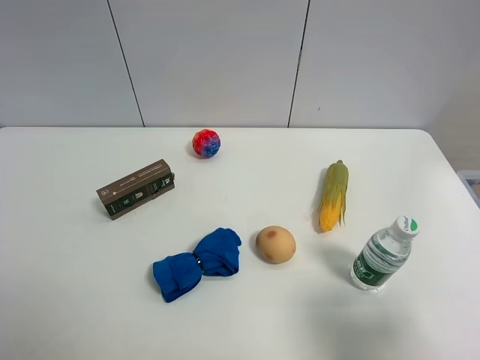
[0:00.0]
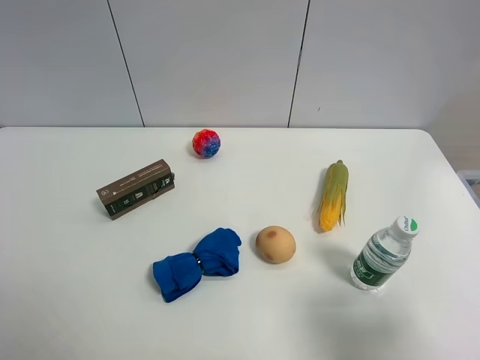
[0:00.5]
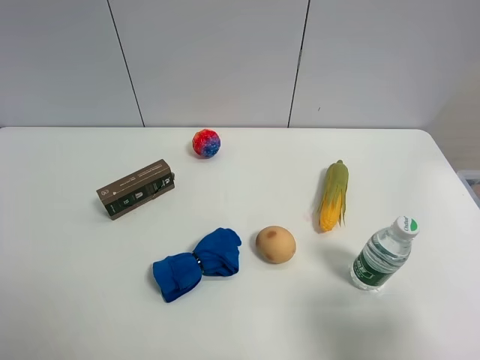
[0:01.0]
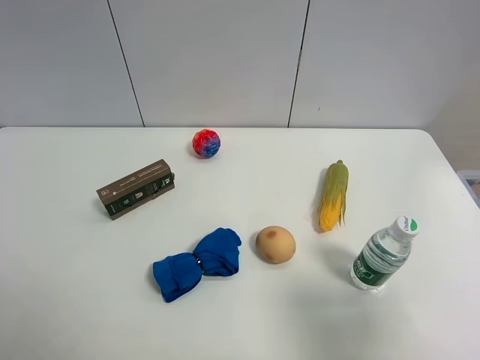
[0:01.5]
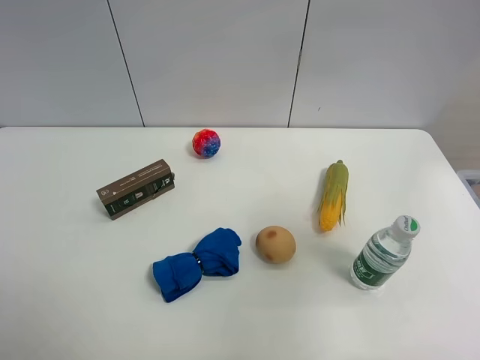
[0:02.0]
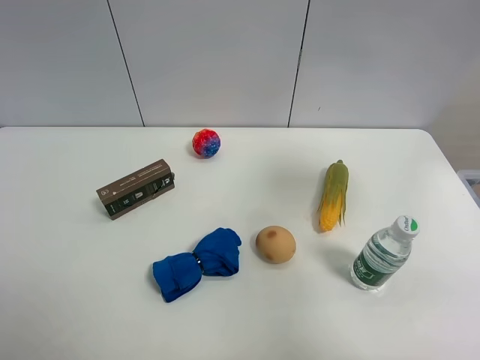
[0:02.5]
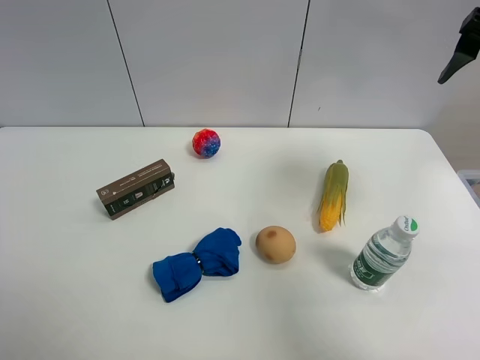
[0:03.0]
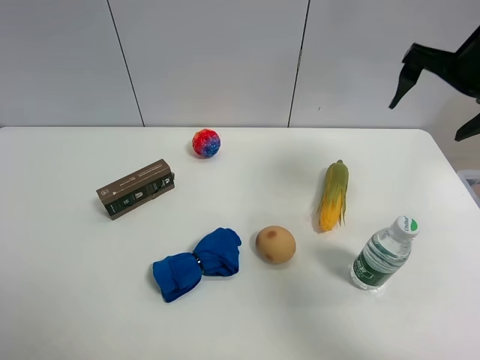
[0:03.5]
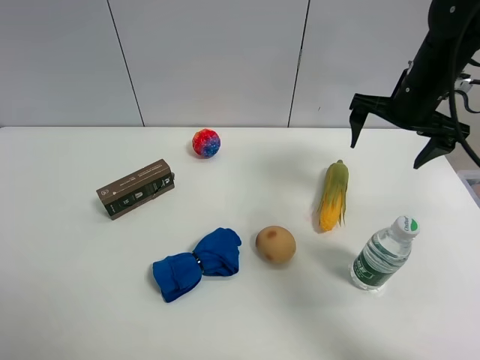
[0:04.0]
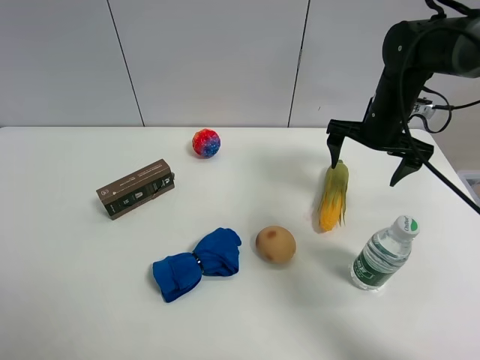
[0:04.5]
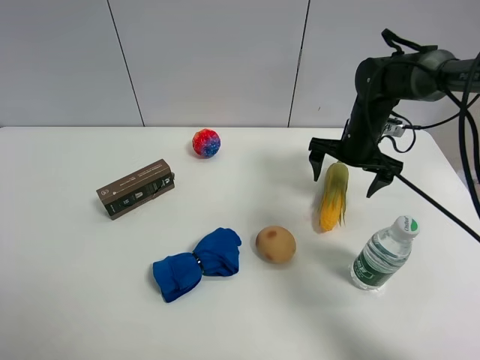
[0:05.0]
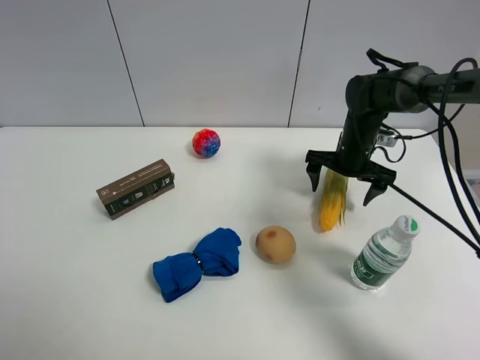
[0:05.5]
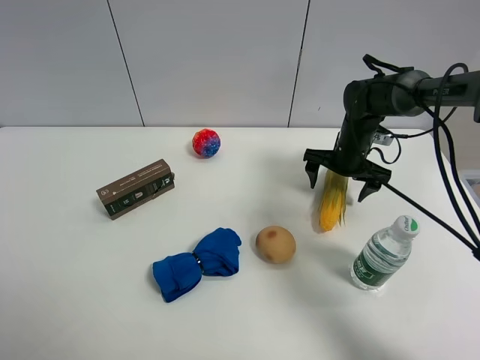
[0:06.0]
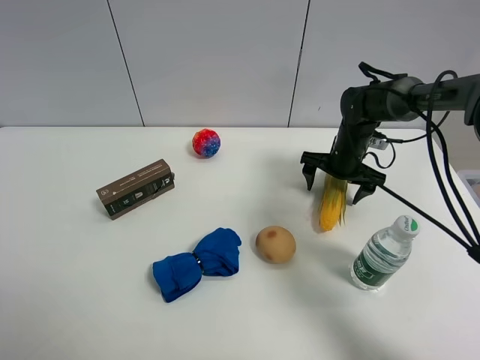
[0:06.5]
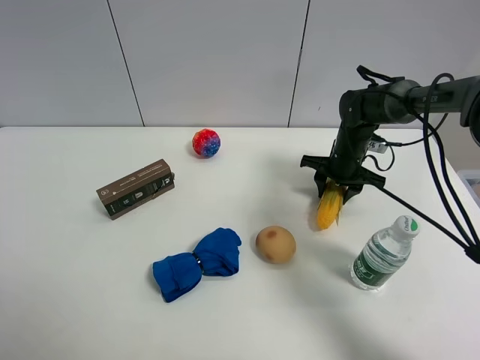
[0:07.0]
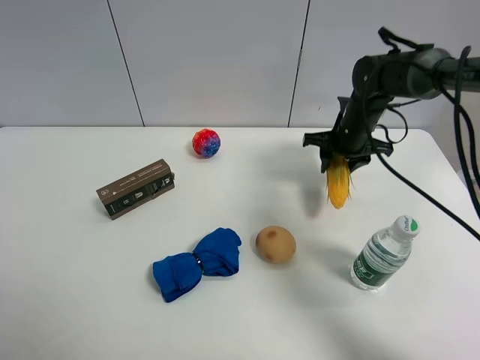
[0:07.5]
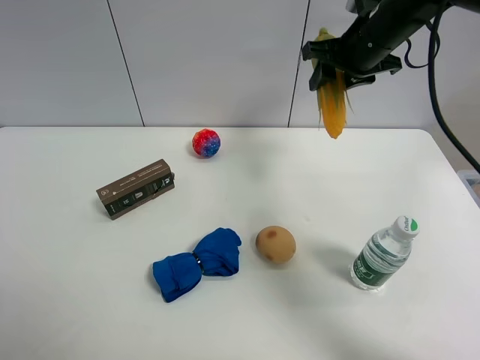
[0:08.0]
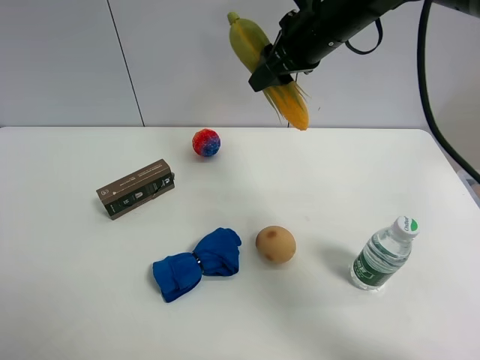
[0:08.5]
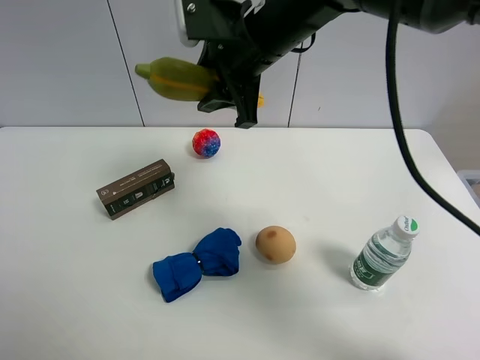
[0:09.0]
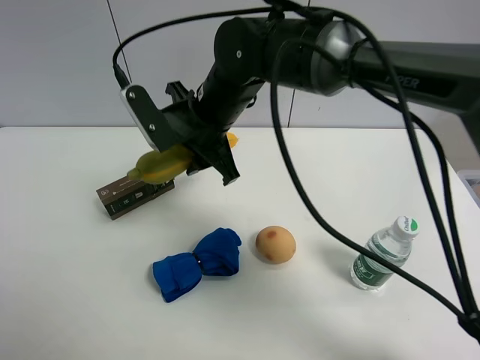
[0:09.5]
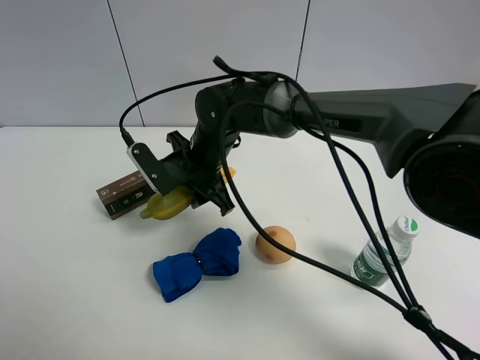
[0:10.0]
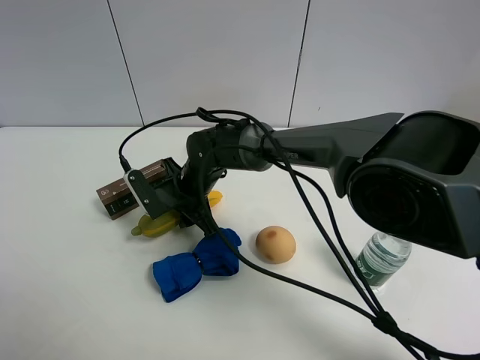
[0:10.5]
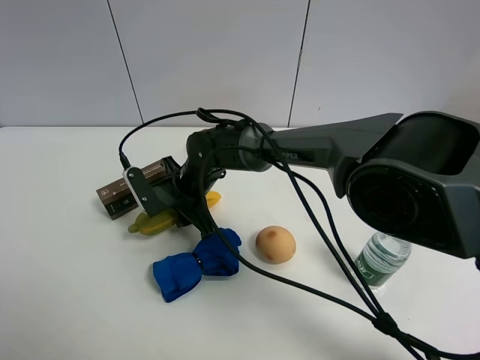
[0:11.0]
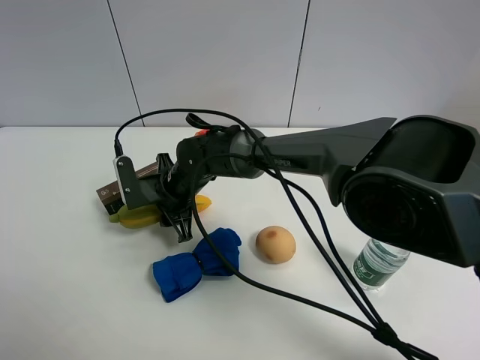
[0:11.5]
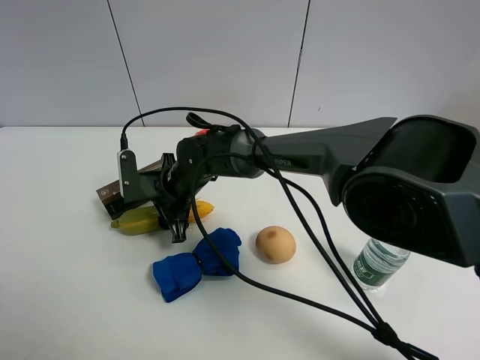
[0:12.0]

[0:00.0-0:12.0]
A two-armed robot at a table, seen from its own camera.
Task of the whole recording: the gripper move the object.
Step, 0:00.0 to 0:07.0: Grasp the corn with the right gripper.
0:00.0 to 0:02.0: The right gripper moves upward and forward, some 20 cm.
0:02.0 to 0:04.0: The right gripper moves forward and downward, roughly 35 cm.
0:04.0 to 0:06.0: The right gripper goes roughly 15 cm downward.
0:06.0 to 0:08.0: The right gripper heads upward, covering about 20 cm, and closes up.
0:08.0 to 0:10.0: The right gripper is displaced to the left and downward by about 30 cm.
0:10.0 to 0:12.0: The right gripper is displaced downward by about 5 cm.

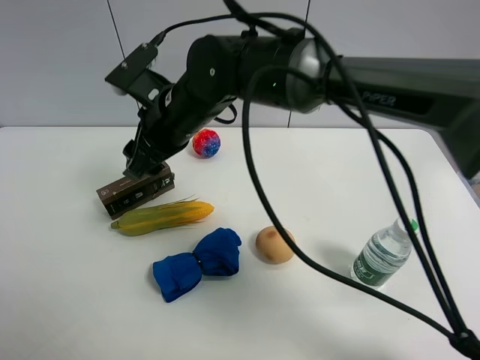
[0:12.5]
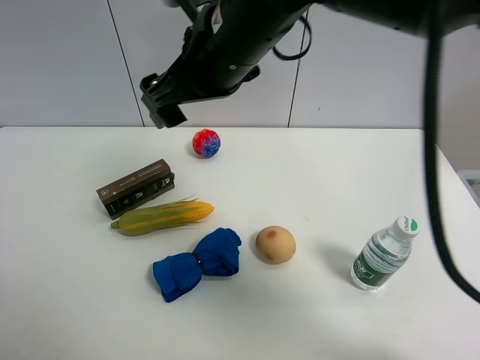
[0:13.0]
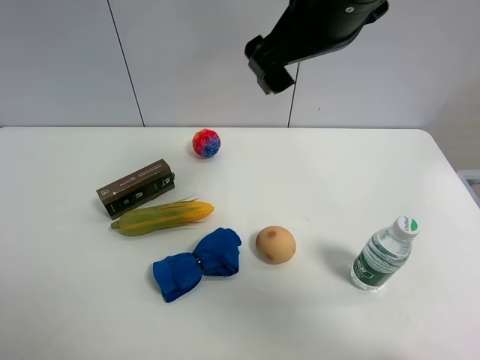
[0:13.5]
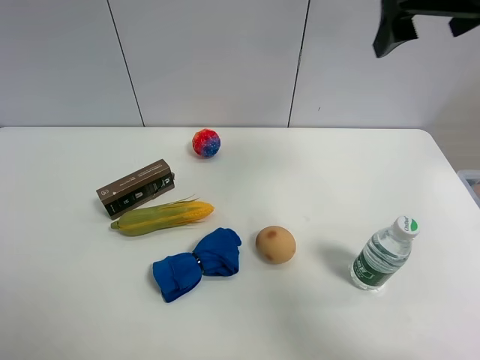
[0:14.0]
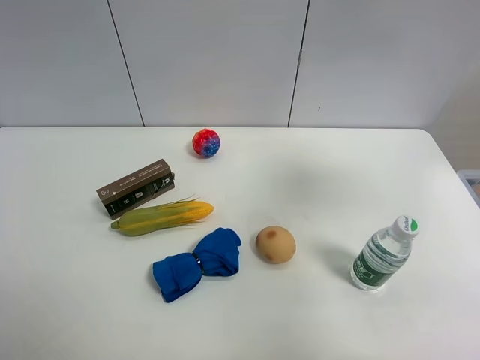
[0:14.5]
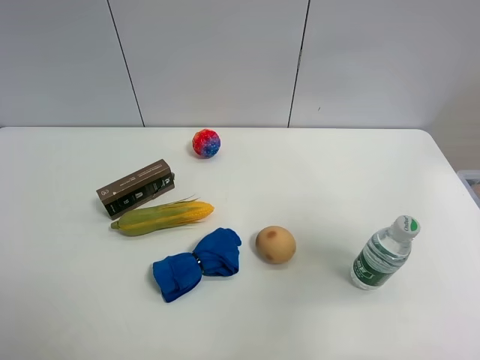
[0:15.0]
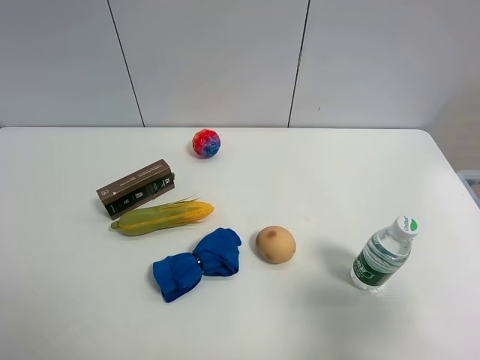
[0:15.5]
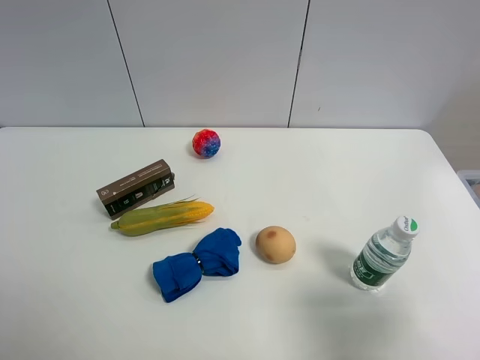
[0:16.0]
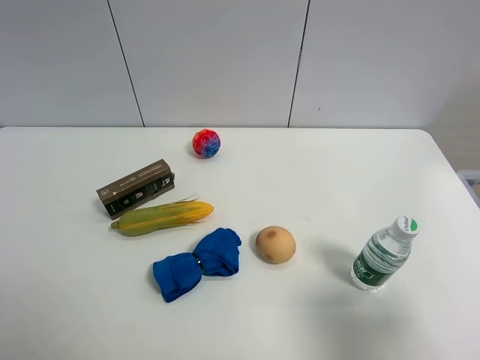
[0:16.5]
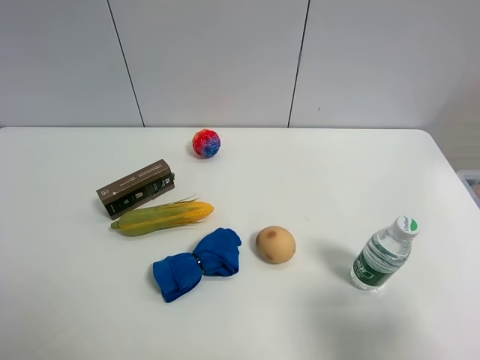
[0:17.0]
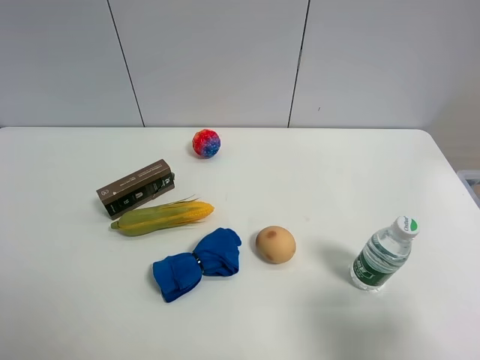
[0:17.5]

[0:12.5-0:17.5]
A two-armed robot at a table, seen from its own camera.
Task of the whole recording: the gripper move the object.
0:12.5 to 0:15.0: The right gripper travels to the right and backward by some 40 cm, and opens.
0:15.0 to 0:17.5: The right gripper heads downward and backward, covering approximately 15 cm.

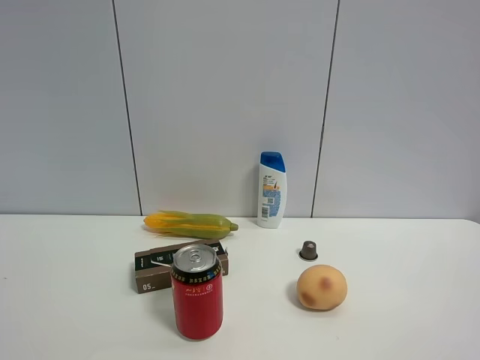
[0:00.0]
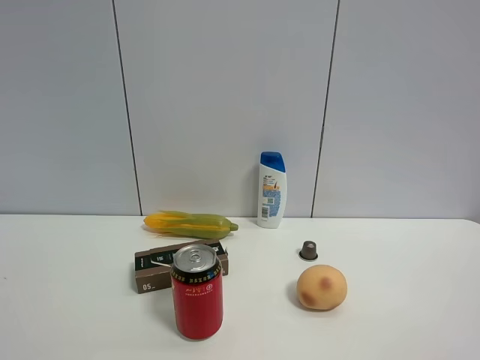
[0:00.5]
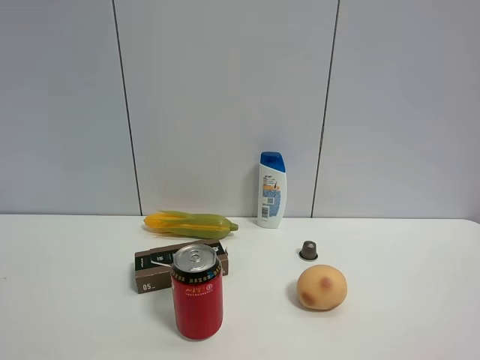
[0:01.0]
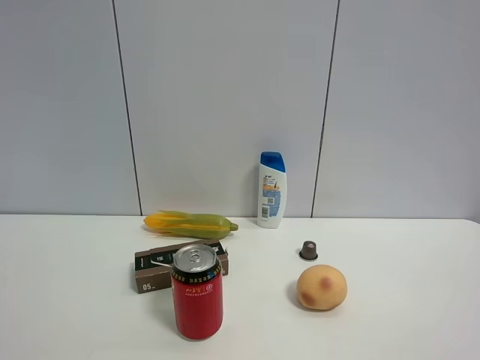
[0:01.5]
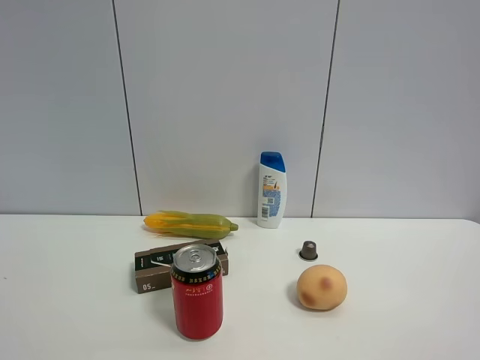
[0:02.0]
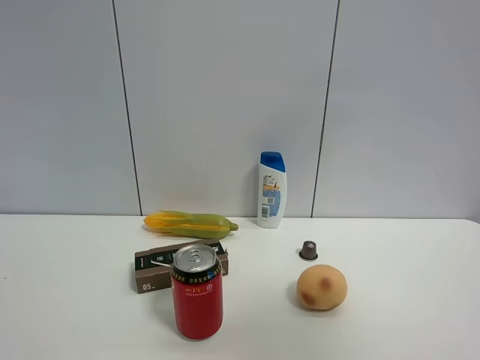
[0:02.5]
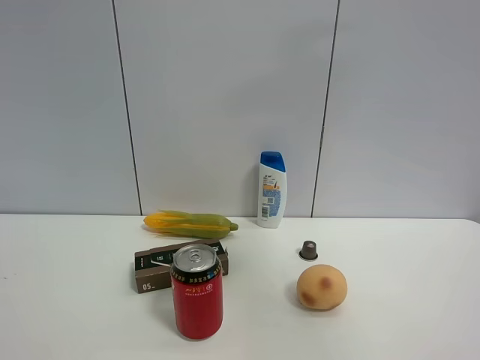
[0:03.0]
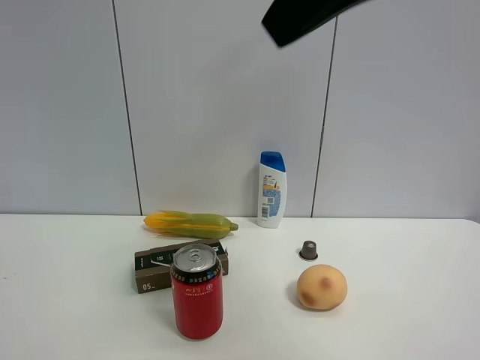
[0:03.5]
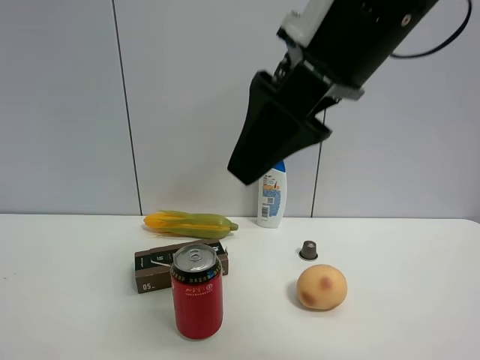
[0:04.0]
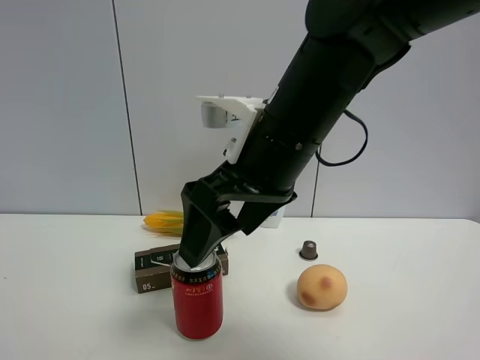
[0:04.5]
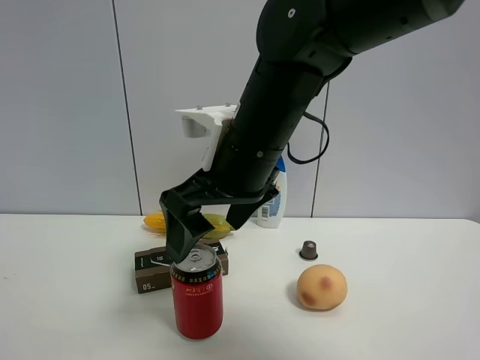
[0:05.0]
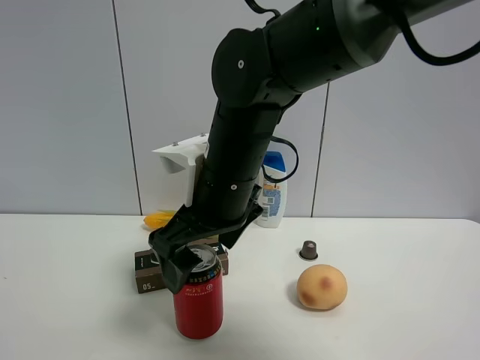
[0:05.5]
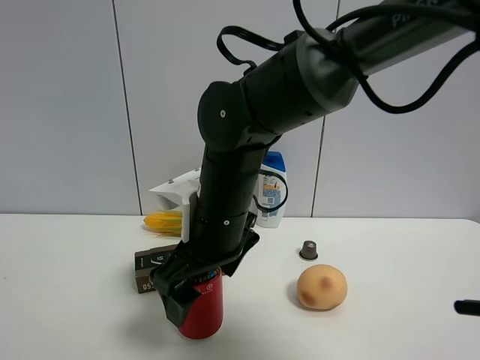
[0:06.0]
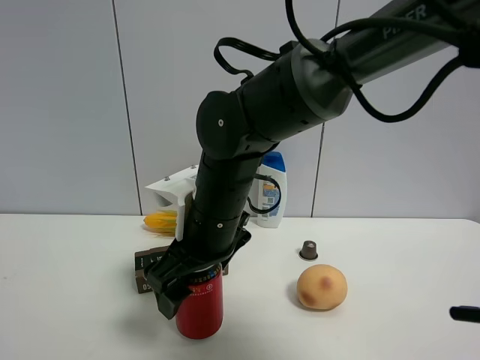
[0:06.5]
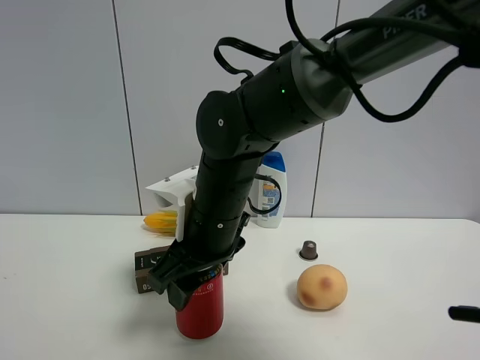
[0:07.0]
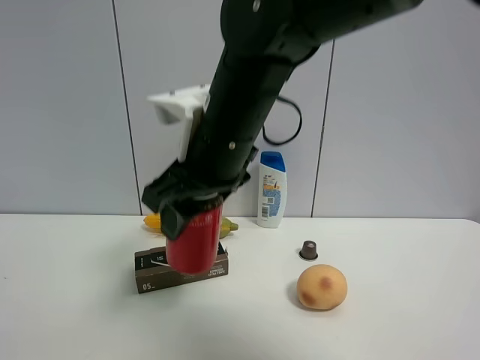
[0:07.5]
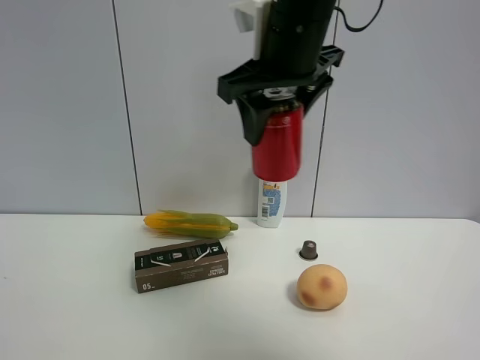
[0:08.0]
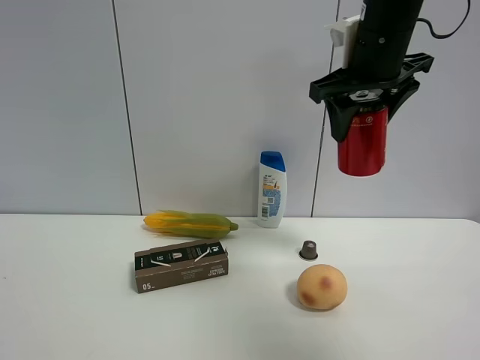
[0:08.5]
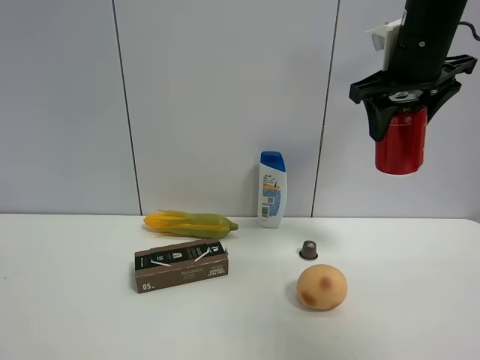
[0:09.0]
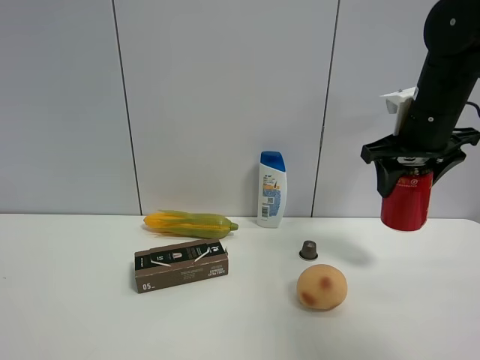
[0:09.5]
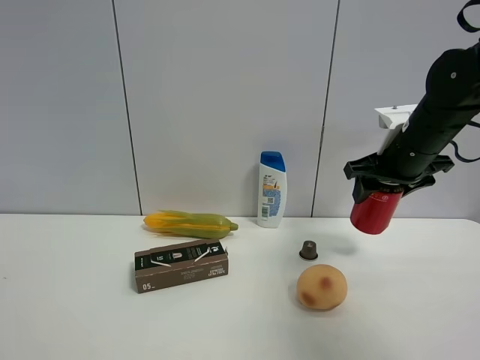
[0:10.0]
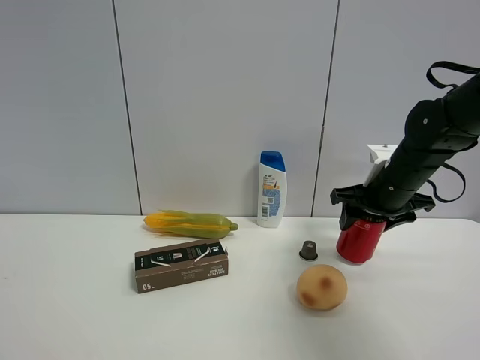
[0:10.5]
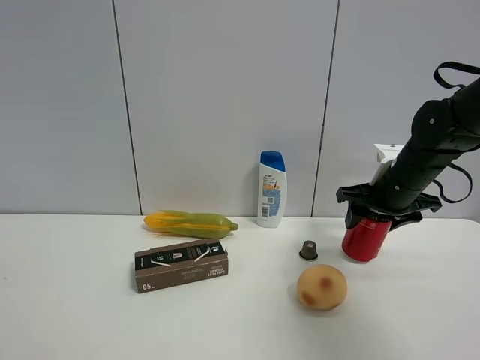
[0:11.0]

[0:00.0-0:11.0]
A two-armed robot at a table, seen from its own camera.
Task of the whole recording: the gripper move the object.
Step, 0:00.0 to 0:07.0: Grasp the Jia Duo Bao with the right gripper.
0:00.0 to 0:02.0: Neither gripper changes place.
0:02.0 to 0:03.5: The right gripper is displaced forward, to the left and upward by roughly 30 cm.
0:03.5 to 0:05.5: The right gripper moves downward and to the left, roughly 25 cm.
0:05.5 to 0:07.5: The right gripper heads upward, covering roughly 5 cm, and closes its fingers.
0:07.5 to 0:09.0: The right gripper travels to the right and forward by roughly 25 cm.
0:09.0 to 0:11.0: The right gripper goes about 20 cm downward.
